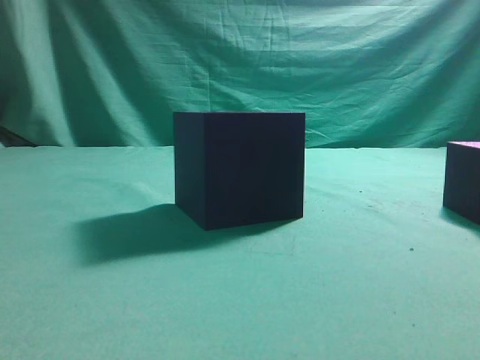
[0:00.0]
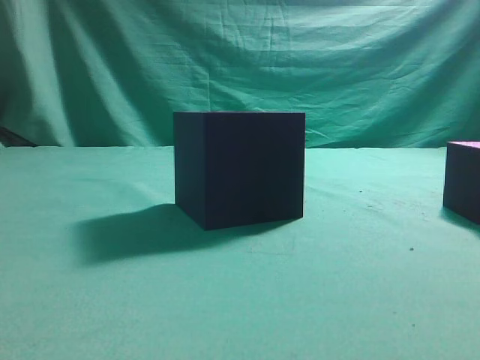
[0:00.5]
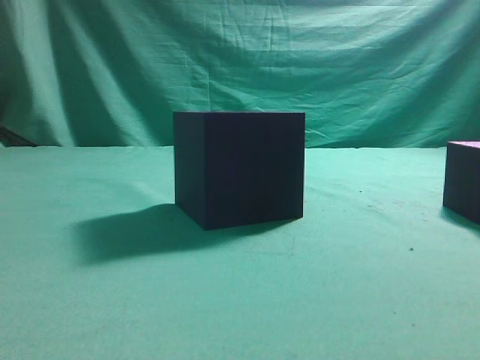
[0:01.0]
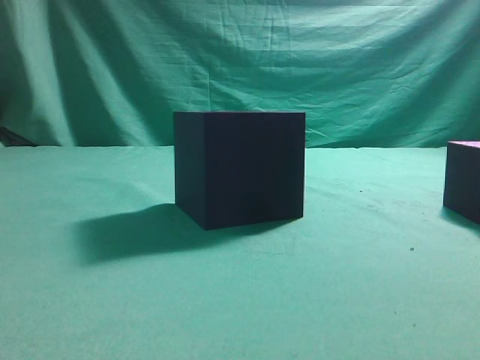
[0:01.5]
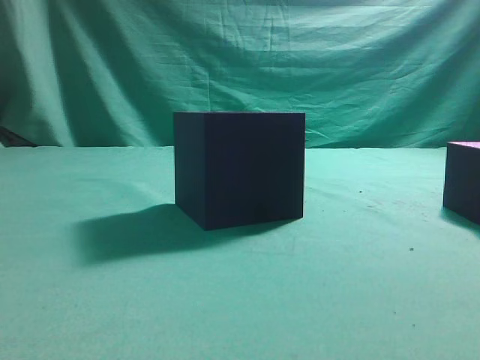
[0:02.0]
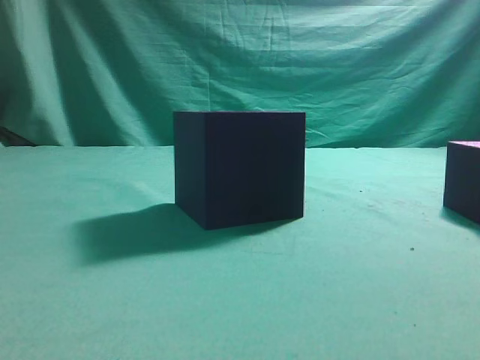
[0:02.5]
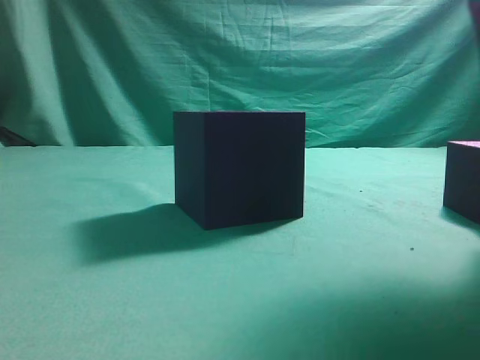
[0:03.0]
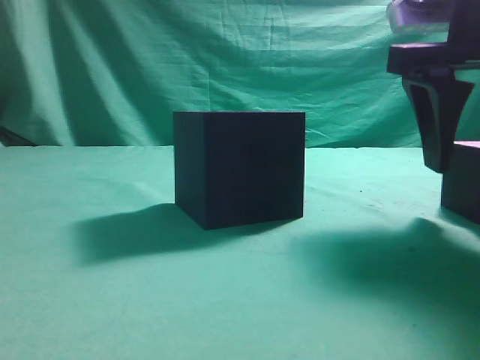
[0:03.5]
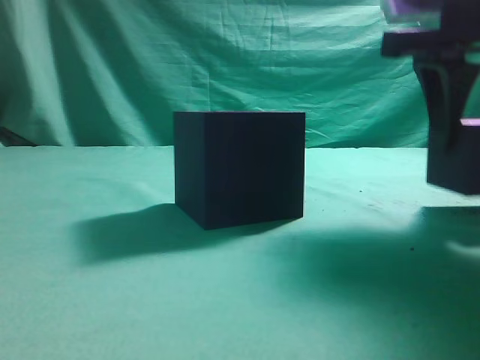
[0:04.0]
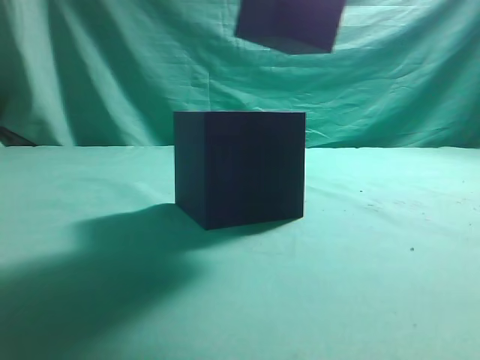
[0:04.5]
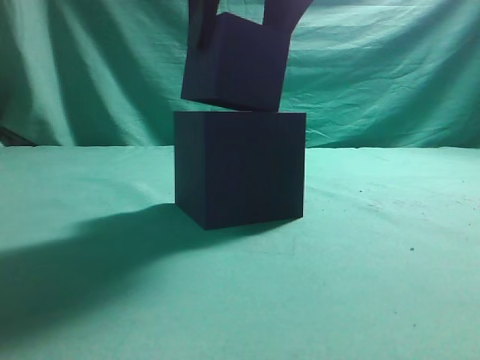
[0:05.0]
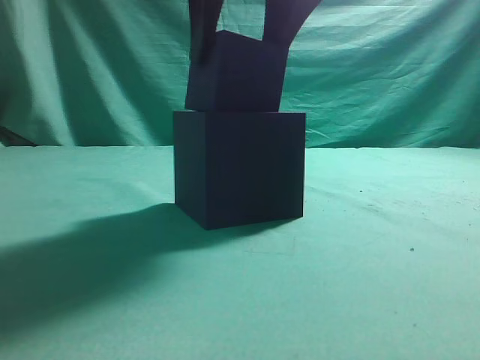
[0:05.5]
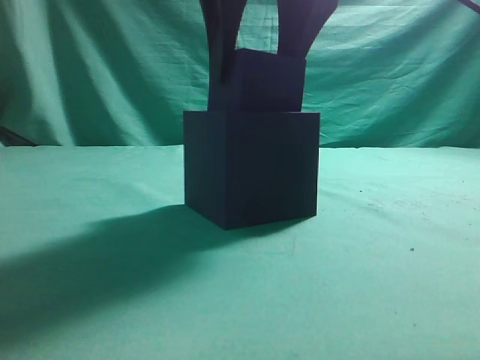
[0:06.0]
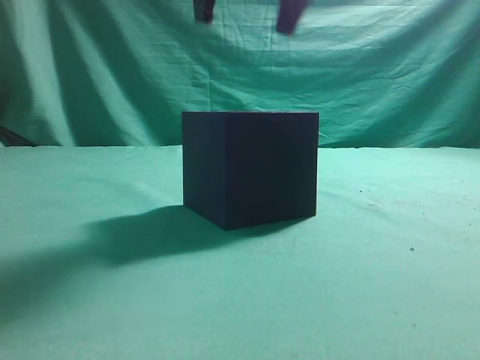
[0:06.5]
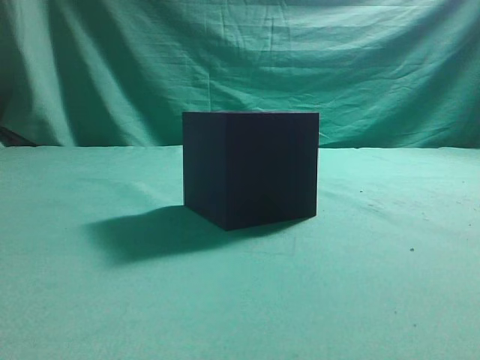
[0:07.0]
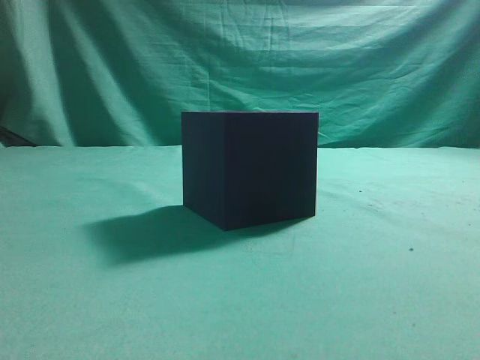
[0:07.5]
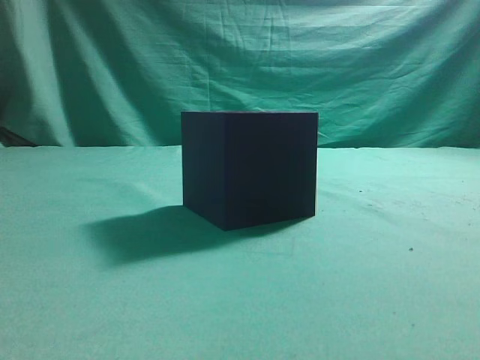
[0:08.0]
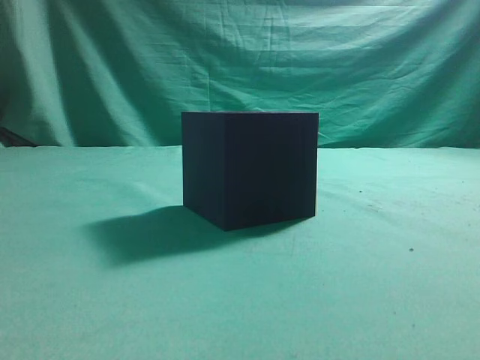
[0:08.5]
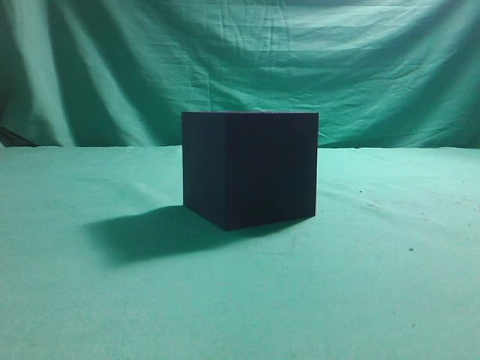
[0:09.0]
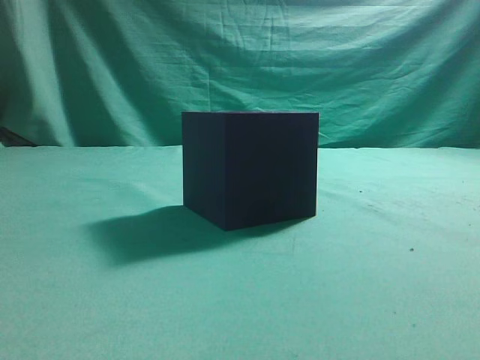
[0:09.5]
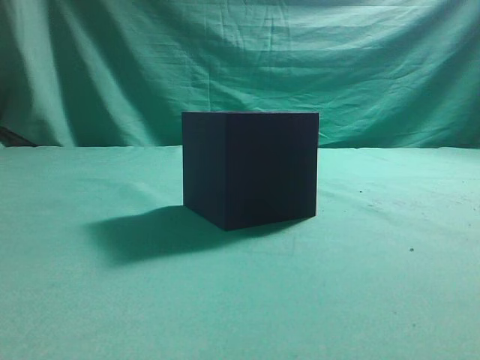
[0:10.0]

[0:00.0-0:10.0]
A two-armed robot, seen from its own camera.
Task of the whole recording: pick up the cube block and place it into the cube groove.
Step, 0:00.0 to 0:04.0: Grasp the cube.
Step, 0:04.5 to 0:06.0: Place cube into the cube-shaped recess.
0:02.0 to 0:04.0: The right gripper heads forward and to the left, covering about 25 cm, and opens.
0:04.0 to 0:06.0: The right gripper travels to the left by approximately 15 cm.
0:06.0 to 0:08.0: The right gripper is displaced backward, to the right and upward by roughly 35 cm, and closes up.
